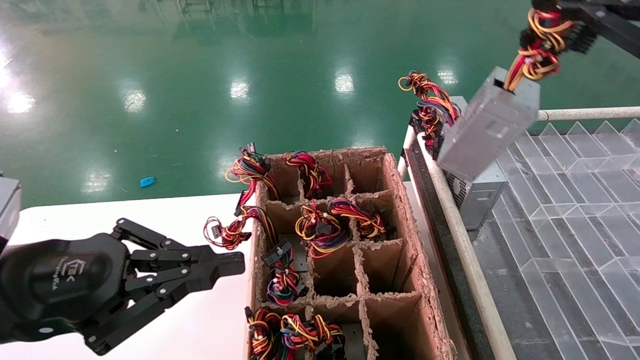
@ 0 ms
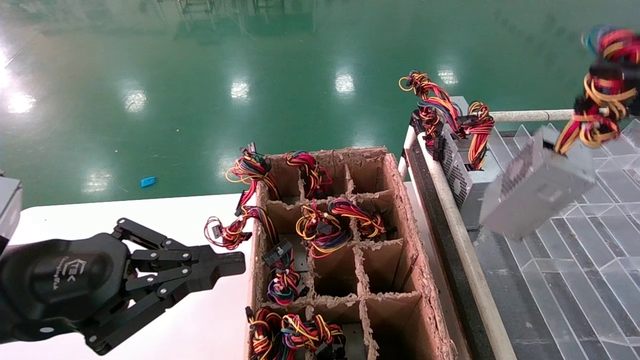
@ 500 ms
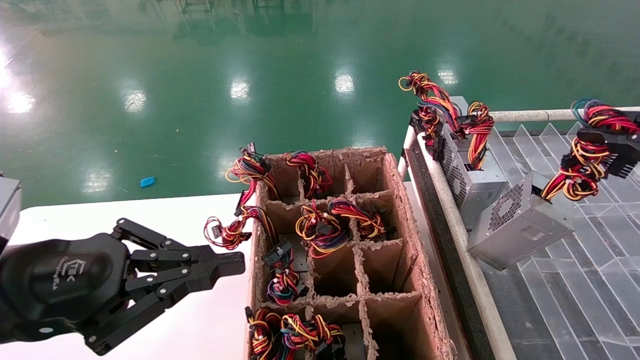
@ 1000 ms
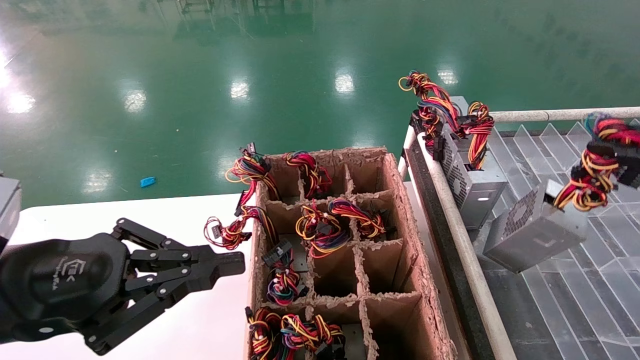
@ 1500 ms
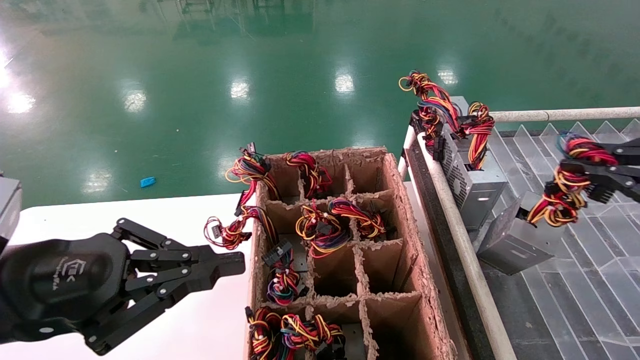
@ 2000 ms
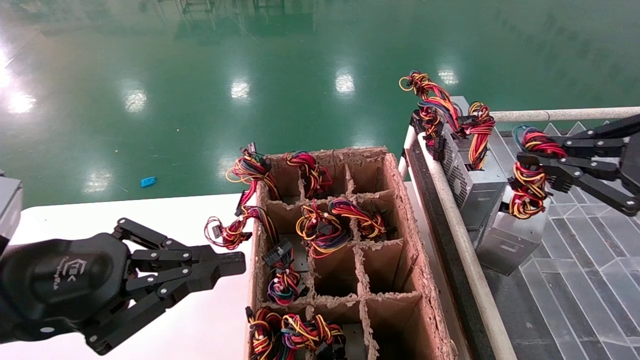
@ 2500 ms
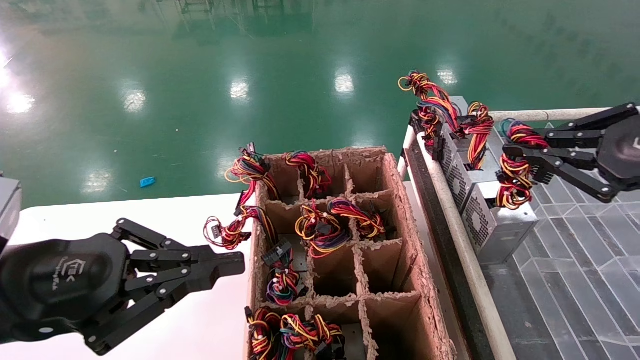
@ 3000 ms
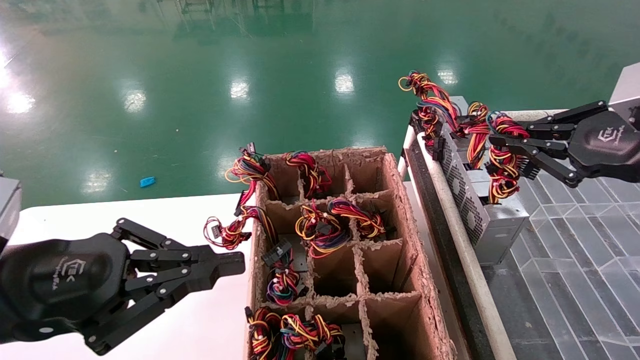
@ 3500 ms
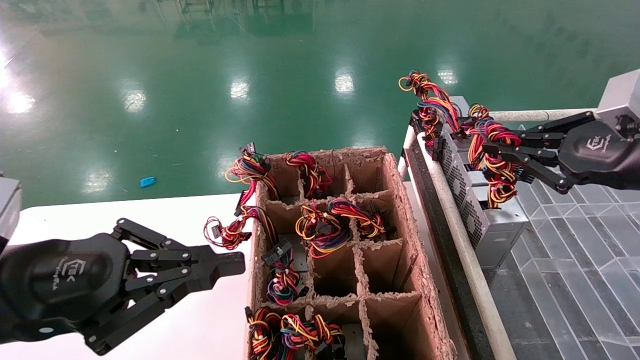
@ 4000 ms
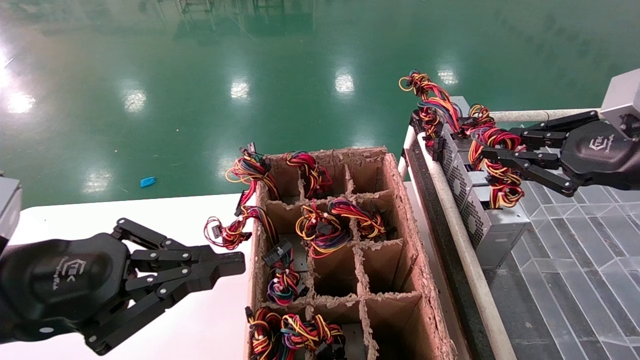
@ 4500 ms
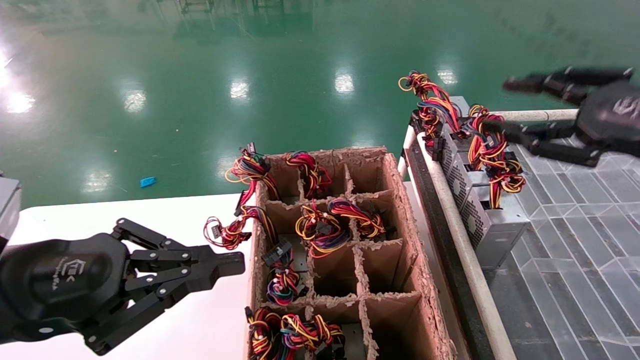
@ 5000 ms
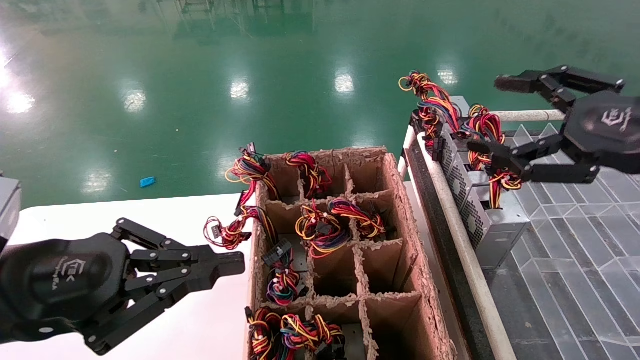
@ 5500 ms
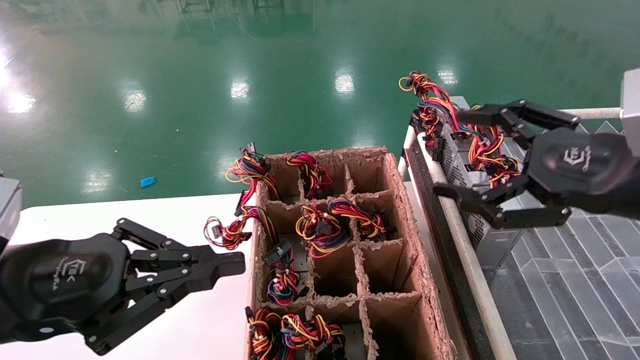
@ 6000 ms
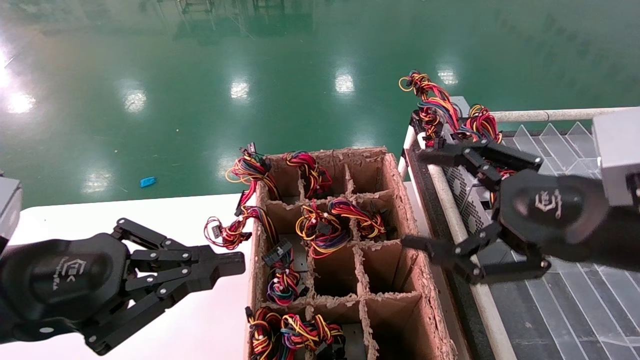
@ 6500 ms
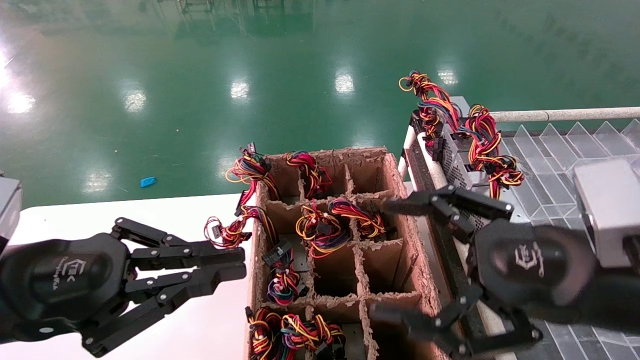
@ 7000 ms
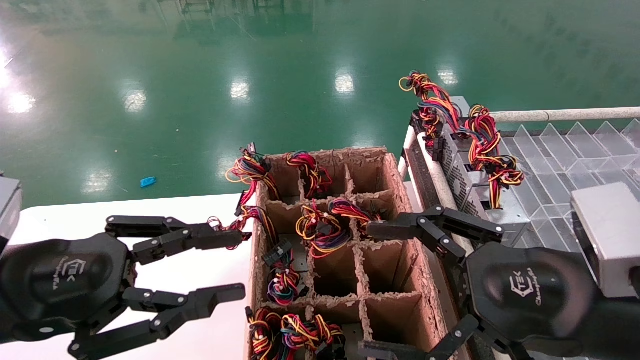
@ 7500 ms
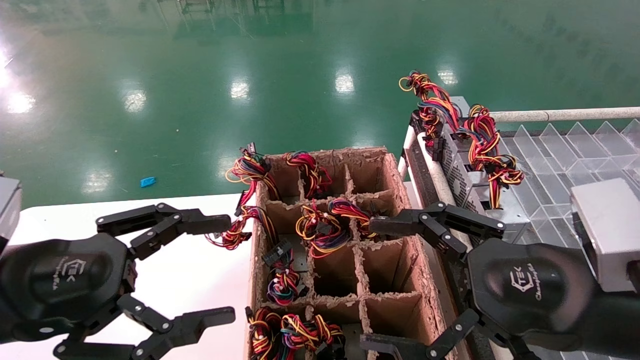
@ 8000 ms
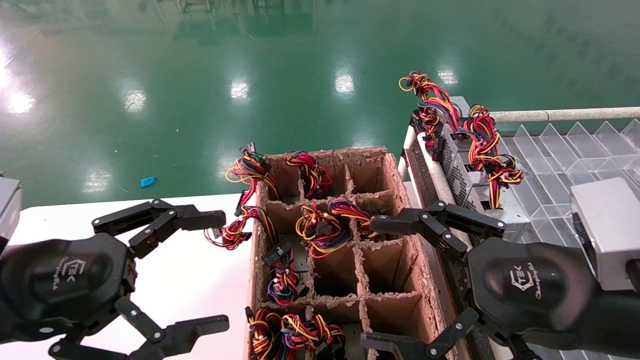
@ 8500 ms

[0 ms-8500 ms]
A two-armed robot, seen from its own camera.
Step, 0 ms to 5000 ms: Place the main unit power supply in the designated area.
0 ms to 2000 ms: The right gripper travels downward and to the right by about 10 cm.
2000 ms to 4000 ms: The right gripper is displaced forward by approximately 10 cm.
4000 ms to 6500 ms: The right gripper travels to the left and backward by roughly 10 cm, and opens.
6500 ms to 8500 ms: The left gripper opens. Meanwhile the right gripper shifts by about 5 cm.
